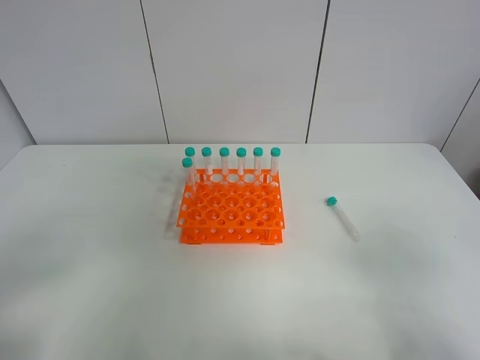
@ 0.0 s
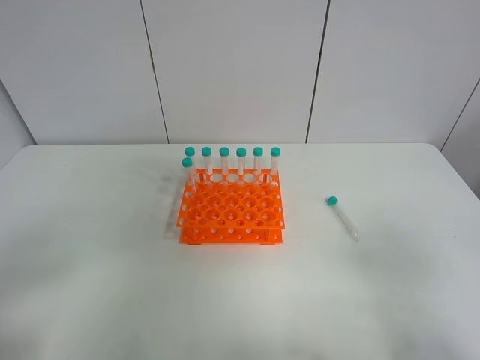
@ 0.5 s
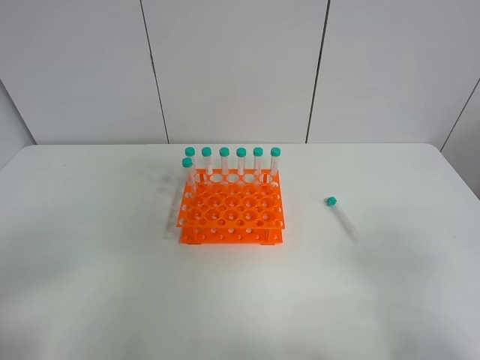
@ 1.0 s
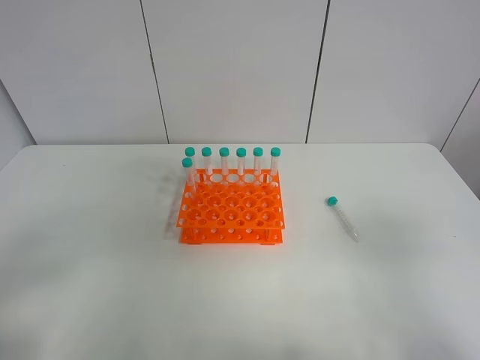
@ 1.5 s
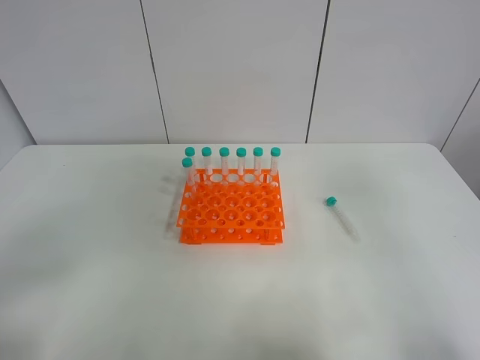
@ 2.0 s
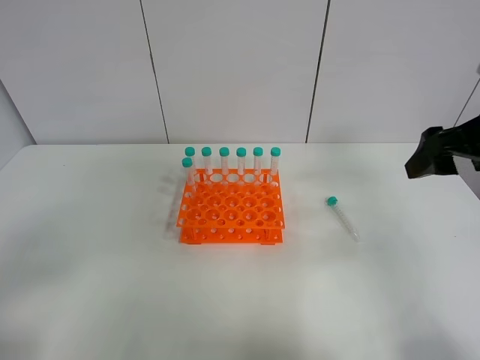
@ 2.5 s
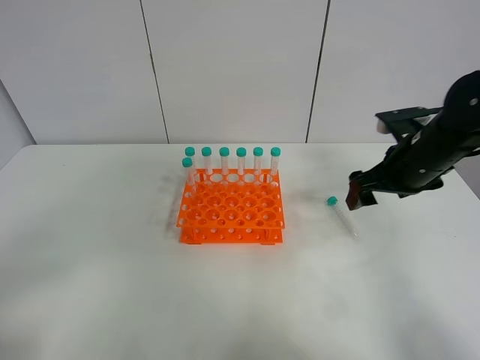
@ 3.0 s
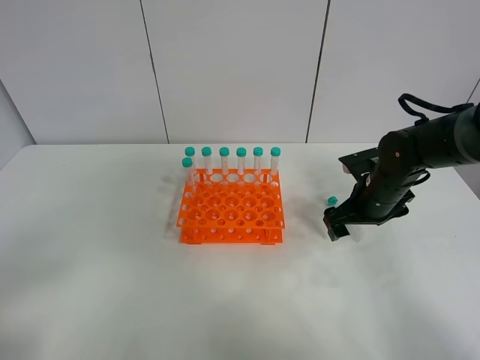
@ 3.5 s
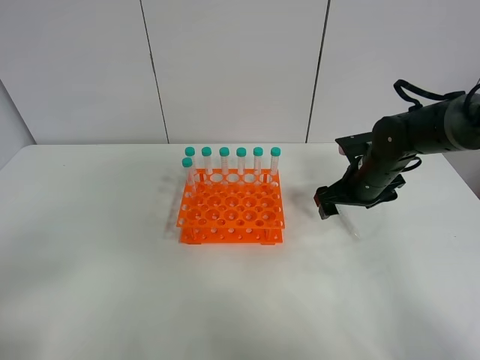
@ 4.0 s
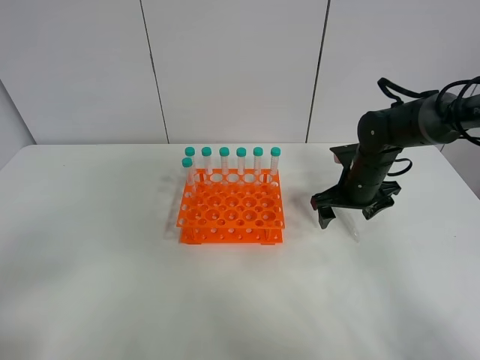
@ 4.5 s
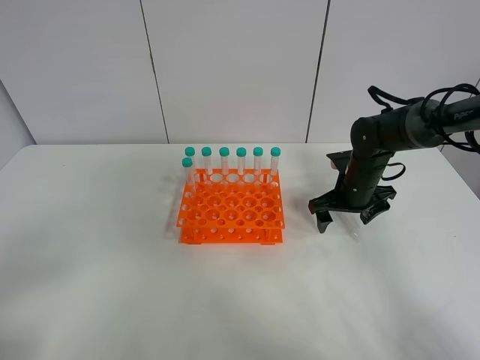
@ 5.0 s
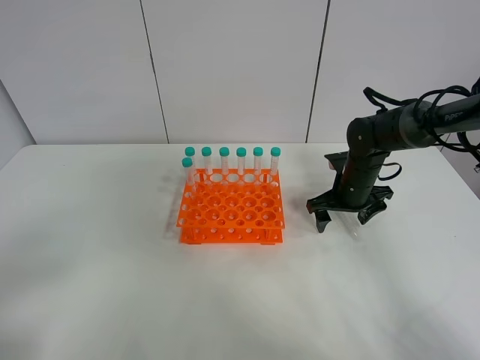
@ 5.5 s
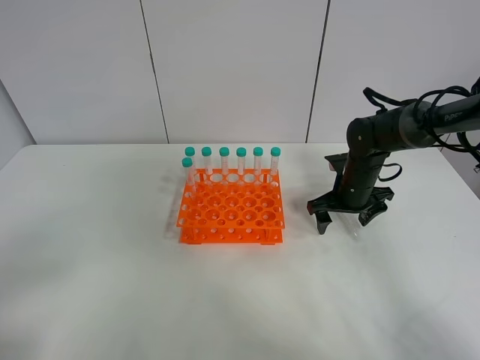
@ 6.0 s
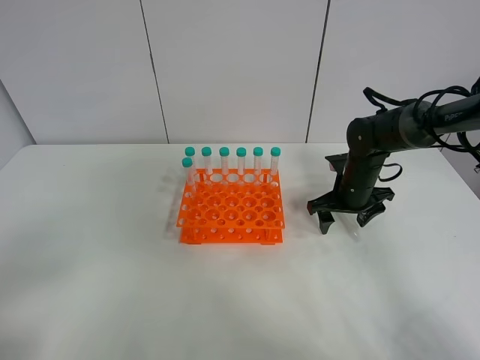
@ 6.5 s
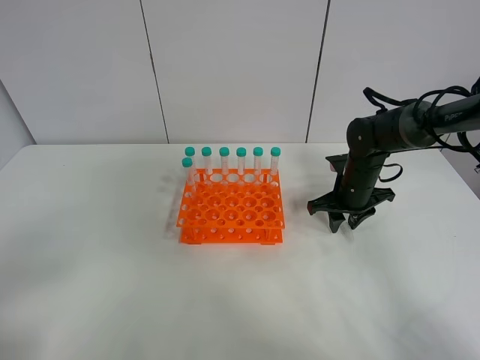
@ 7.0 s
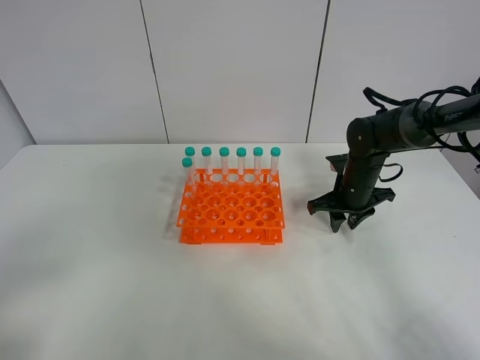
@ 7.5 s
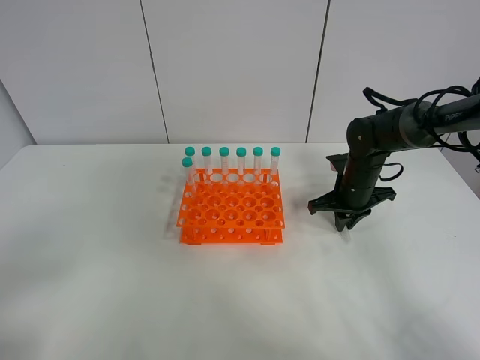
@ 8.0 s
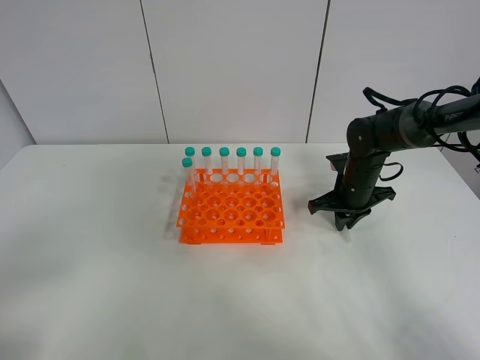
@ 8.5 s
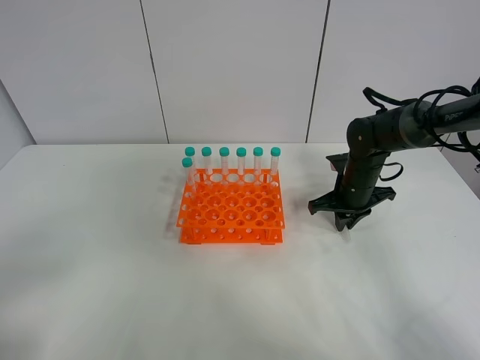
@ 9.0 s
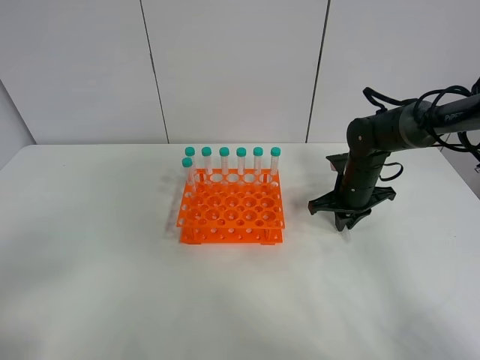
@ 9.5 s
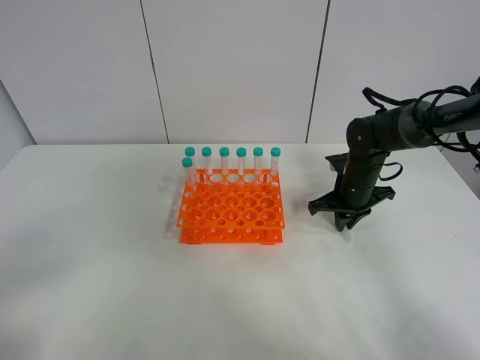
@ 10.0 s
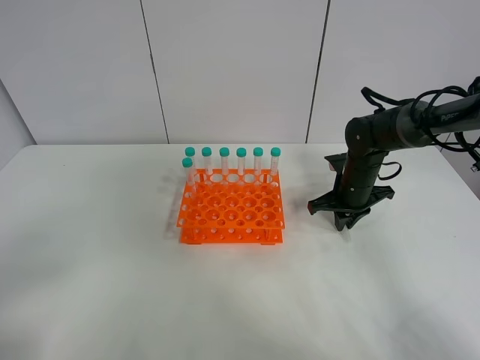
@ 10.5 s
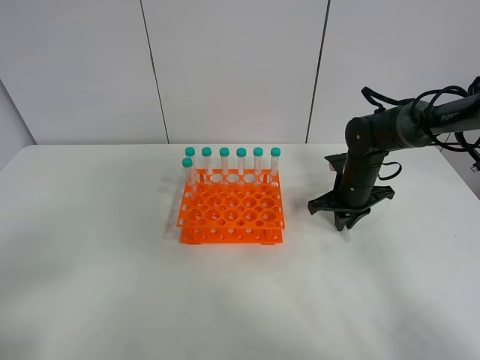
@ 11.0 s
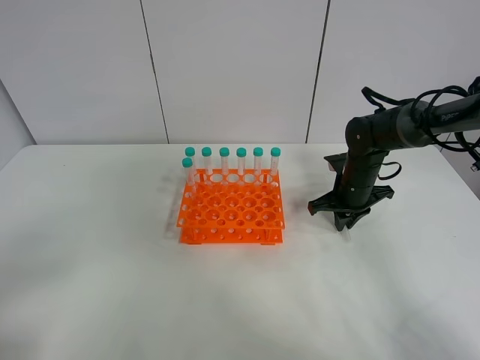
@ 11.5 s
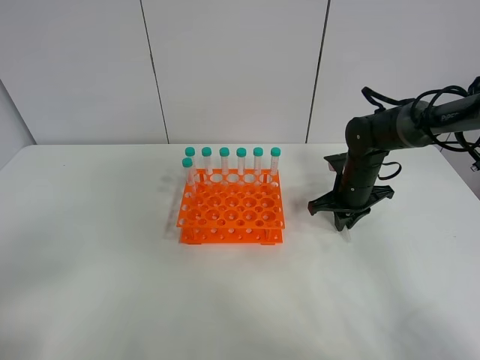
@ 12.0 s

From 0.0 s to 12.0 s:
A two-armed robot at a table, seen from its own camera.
Task of the whole recording: Put the test tube on the table back onto the test tube rack.
Step, from 0.0 s to 7.5 s: Pick up the test tube with the right gripper.
From 0.0 s to 2.0 s: The right gripper goes about 15 cm forward and upward.
From 2.0 s to 4.0 s: The right gripper shifts some 35 cm forward and downward.
From 4.0 s to 6.0 s: The grippers move only a little.
From 6.0 s to 8.0 s: The right gripper closes up.
From 8.0 s to 12.0 s: Both grippers stay put.

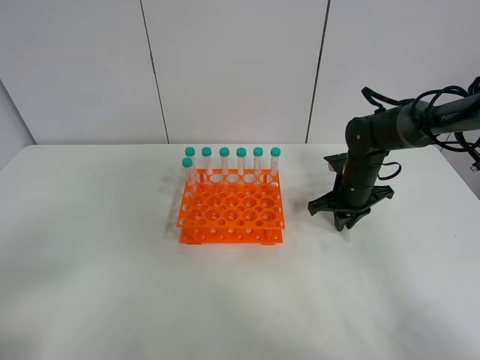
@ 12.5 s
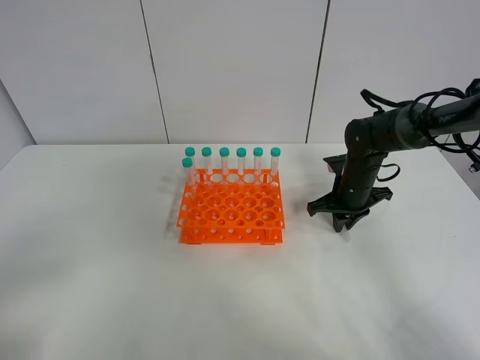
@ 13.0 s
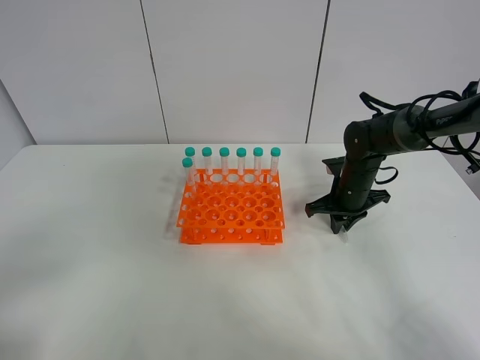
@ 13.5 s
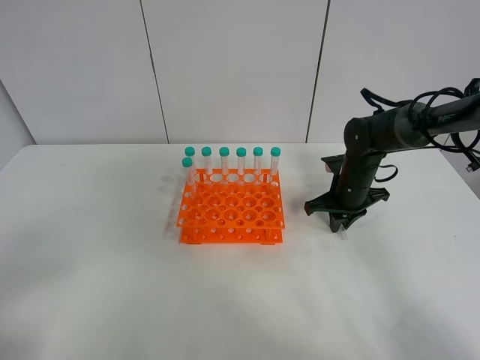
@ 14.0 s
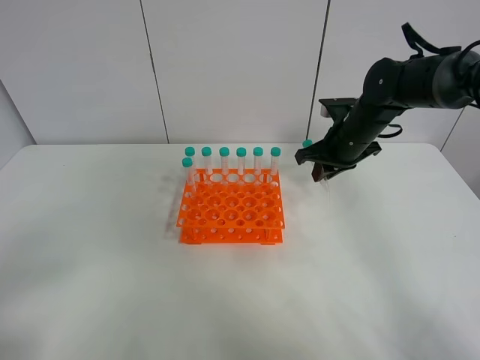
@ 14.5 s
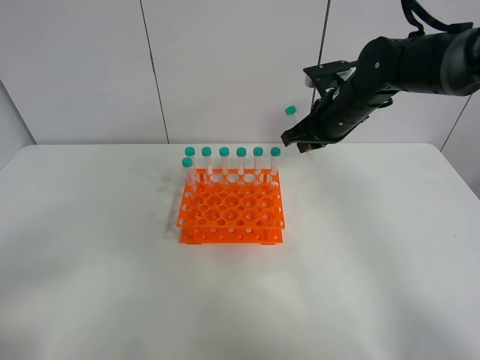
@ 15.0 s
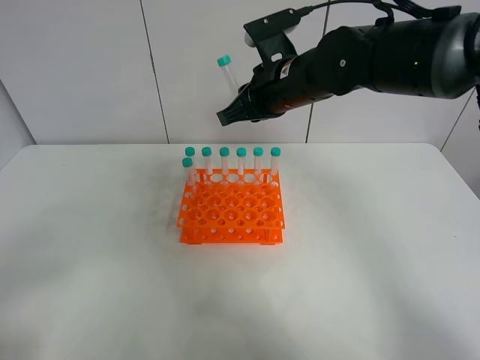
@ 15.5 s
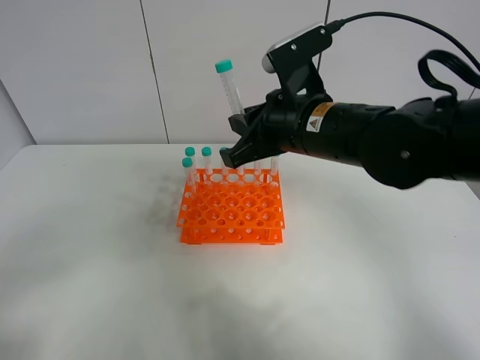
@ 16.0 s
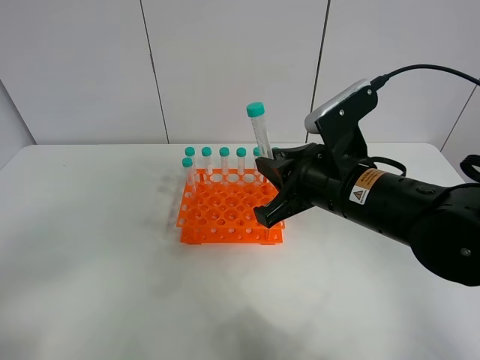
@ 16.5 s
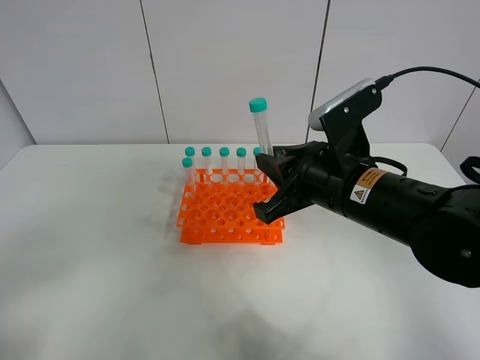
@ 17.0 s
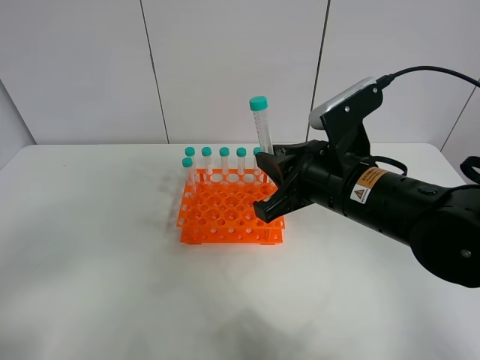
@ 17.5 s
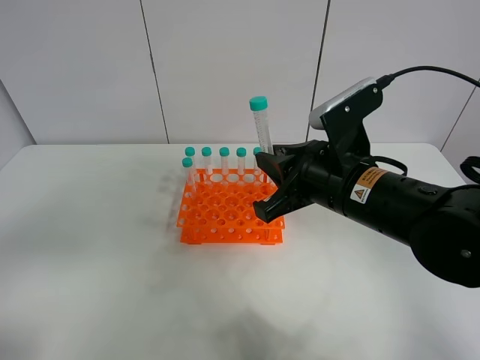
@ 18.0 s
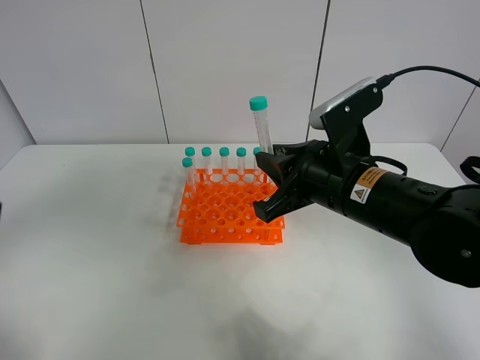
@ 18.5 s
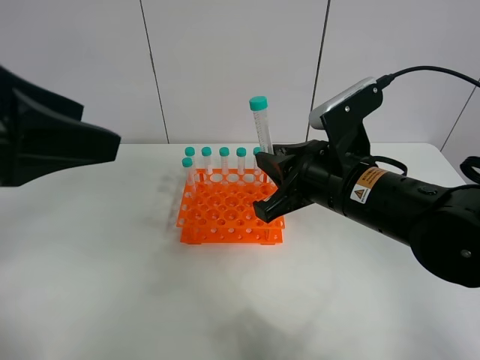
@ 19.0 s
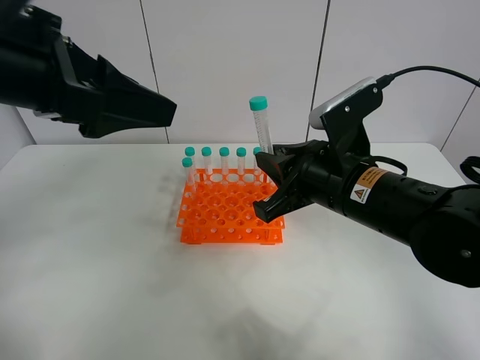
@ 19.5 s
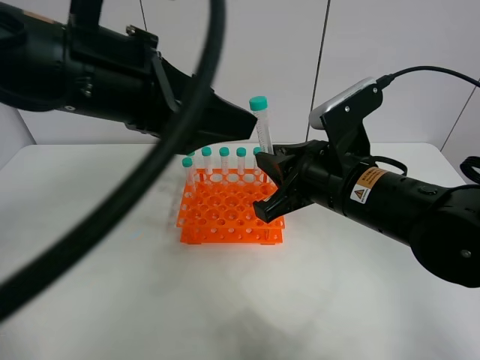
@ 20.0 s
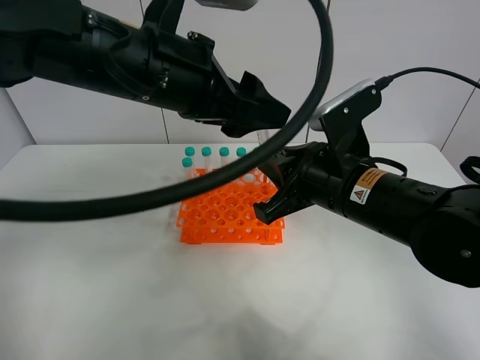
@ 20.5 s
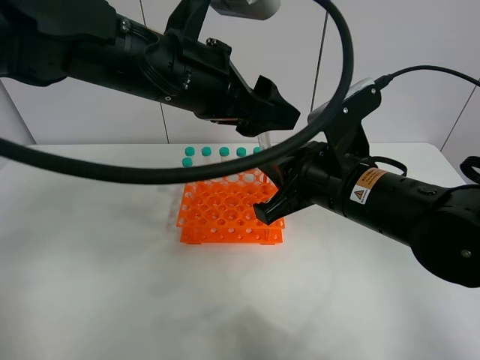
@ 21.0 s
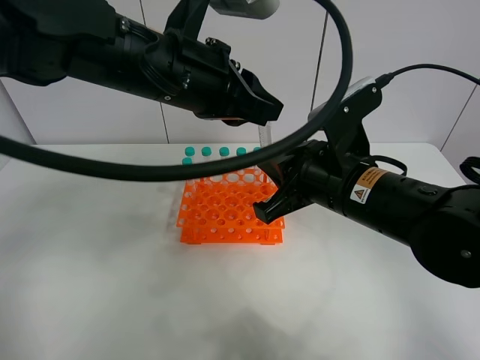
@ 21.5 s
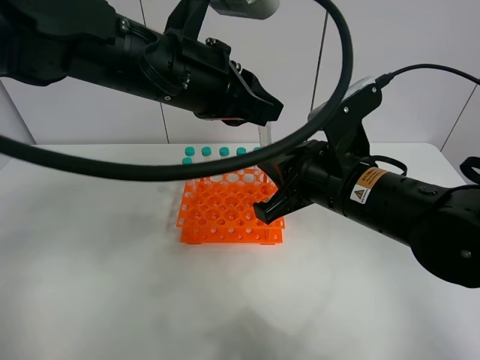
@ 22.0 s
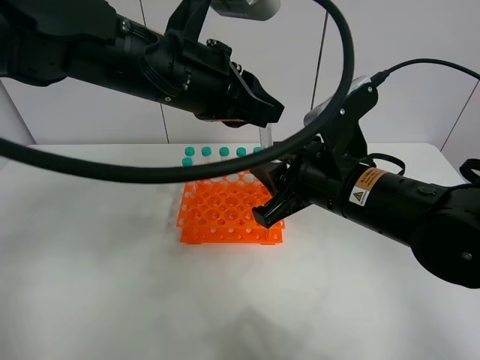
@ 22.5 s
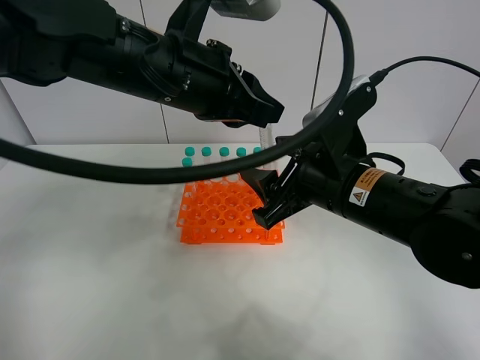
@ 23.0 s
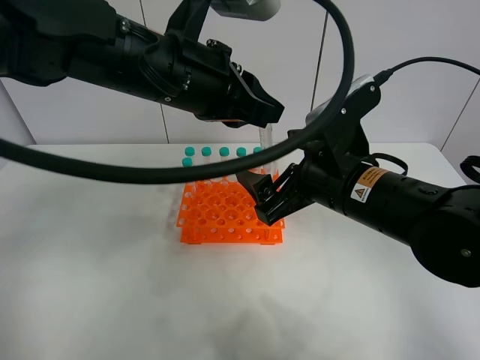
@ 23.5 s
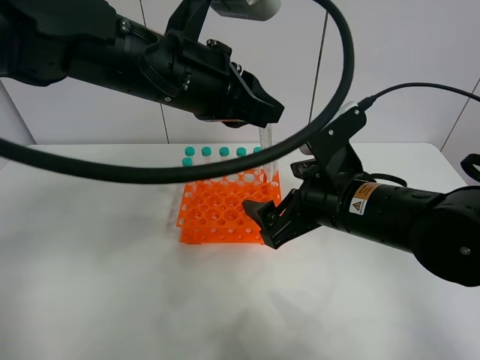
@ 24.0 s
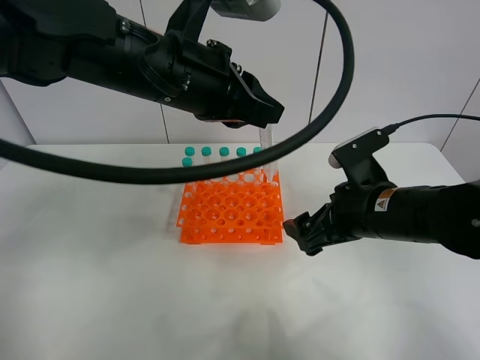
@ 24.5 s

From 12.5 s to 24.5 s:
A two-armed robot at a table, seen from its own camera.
Task of the whole recording: Put the test tube on the table back onto the test tube rack.
Step, from 12.5 s to 22.5 s: Move the test tube from the right gripper to the left gripper.
From 12.5 s to 14.5 s: The right gripper shifts about 10 cm upward.
From 14.5 s to 16.5 s: The right gripper is displaced backward and to the left by some 20 cm.
From 16.5 s to 18.5 s: The left gripper moves forward and upward, about 10 cm.
From 18.5 s to 20.5 s: The left gripper goes some 25 cm forward and to the right.
From 20.5 s to 22.5 s: The right gripper opens its fingers; the left gripper closes its fingers.
From 22.5 s to 24.5 s: The right gripper heads to the right, covering approximately 5 cm, and opens.

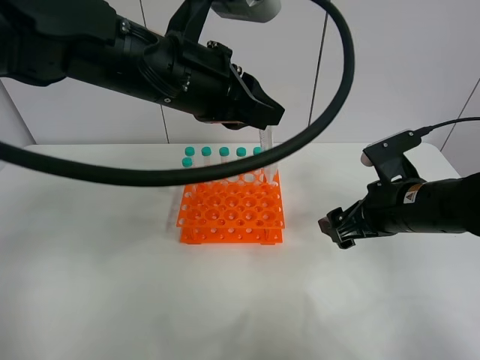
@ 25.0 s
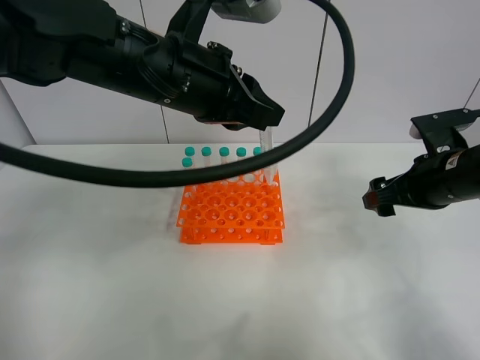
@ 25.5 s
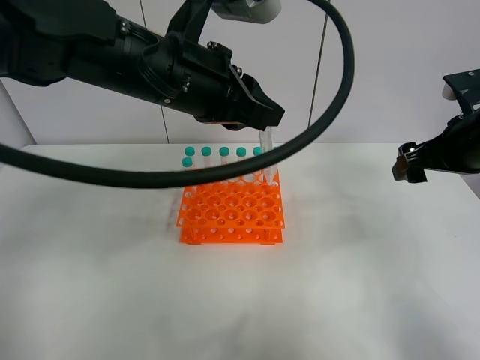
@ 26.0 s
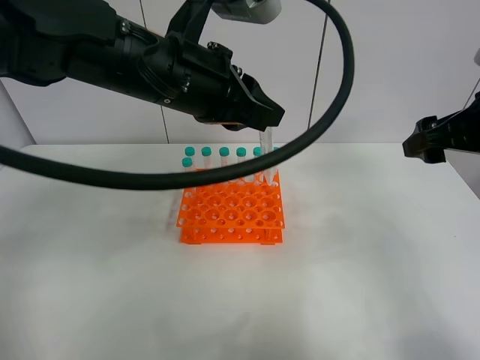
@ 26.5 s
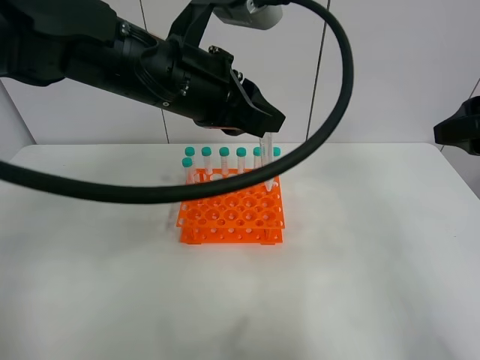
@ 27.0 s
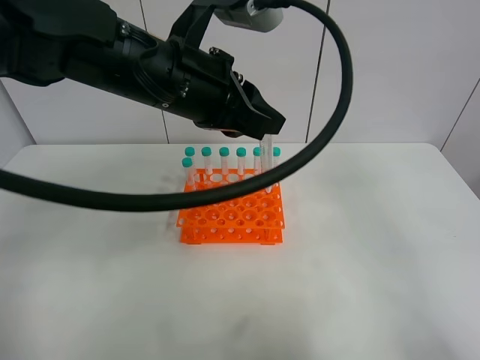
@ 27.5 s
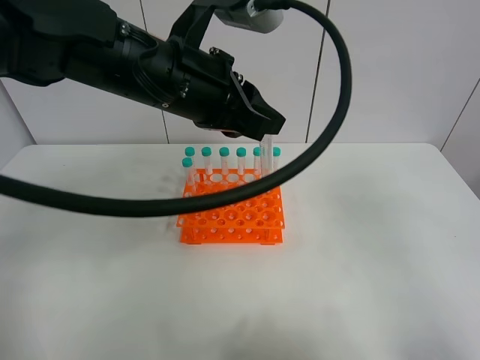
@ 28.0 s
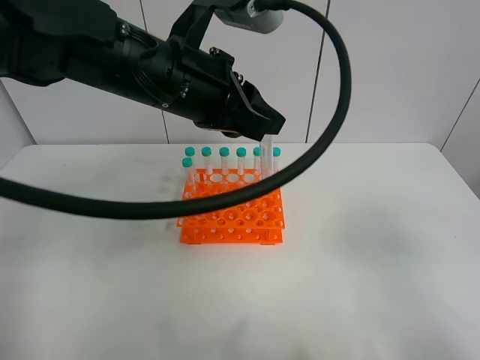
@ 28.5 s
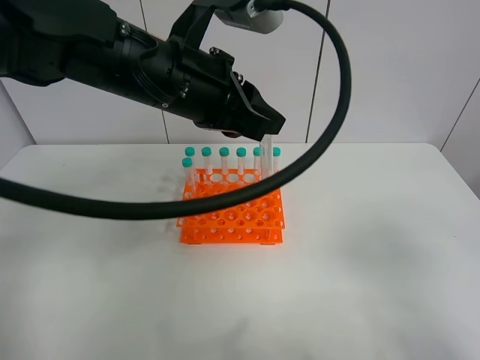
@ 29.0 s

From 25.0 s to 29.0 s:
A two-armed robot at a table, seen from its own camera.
Task of the whole recording: Put the test tube on the table back onto the test tube rack.
From 25.0 s to 27.0 s: The right gripper moves upward and to the right, about 20 cm.
From 27.0 s to 29.0 s: The right gripper travels backward by roughly 20 cm.
